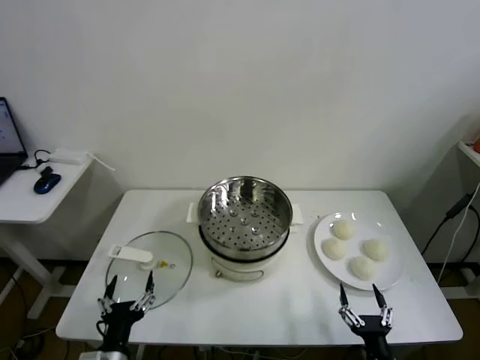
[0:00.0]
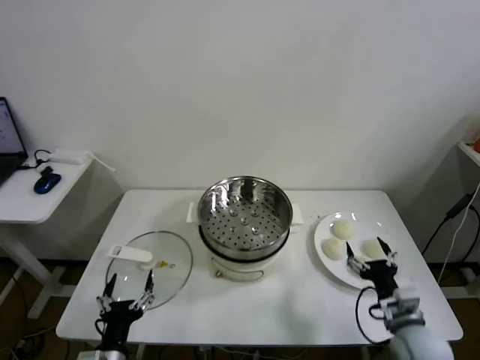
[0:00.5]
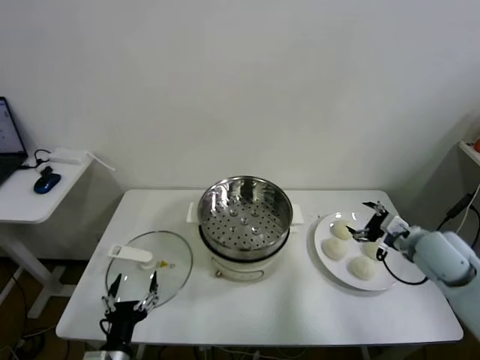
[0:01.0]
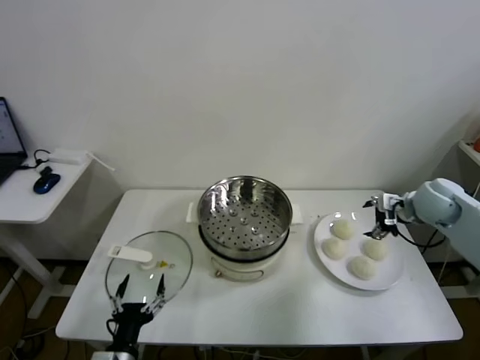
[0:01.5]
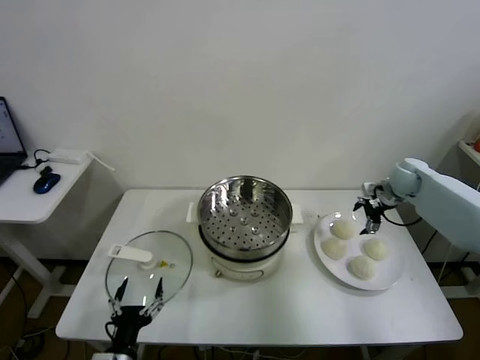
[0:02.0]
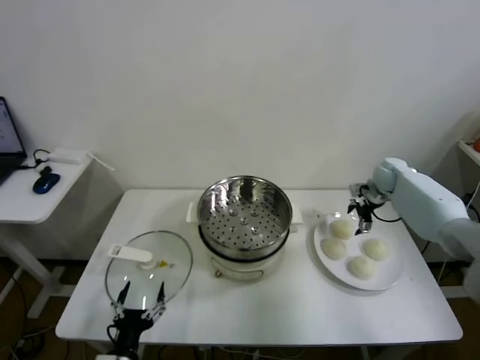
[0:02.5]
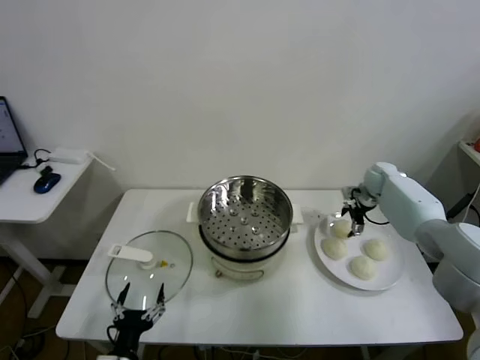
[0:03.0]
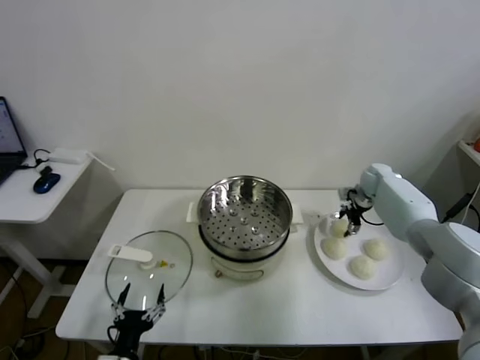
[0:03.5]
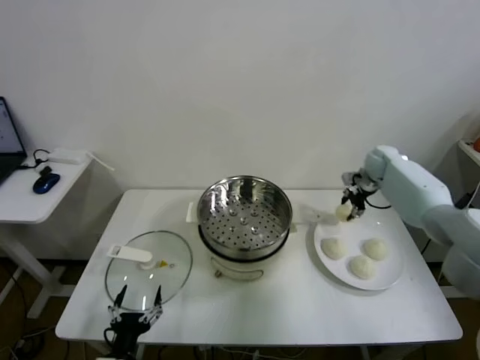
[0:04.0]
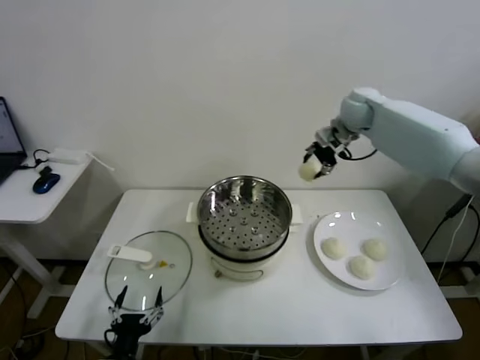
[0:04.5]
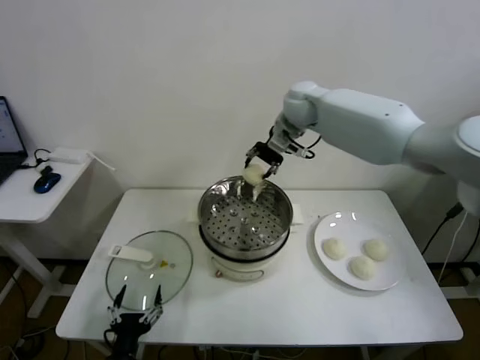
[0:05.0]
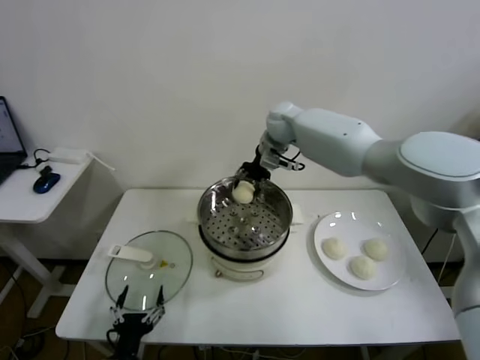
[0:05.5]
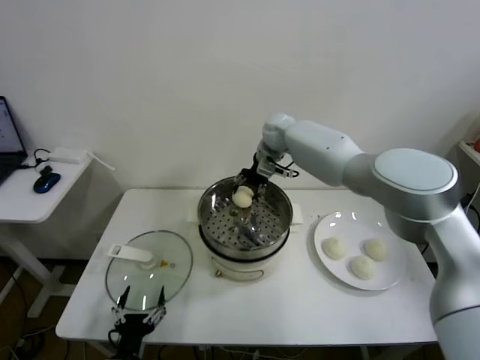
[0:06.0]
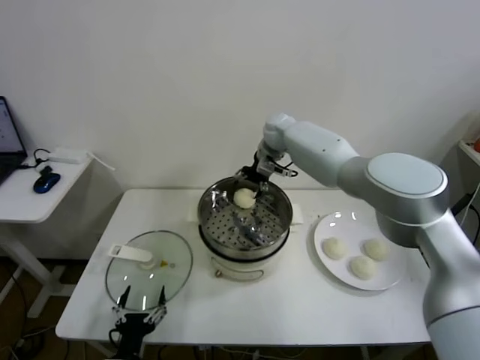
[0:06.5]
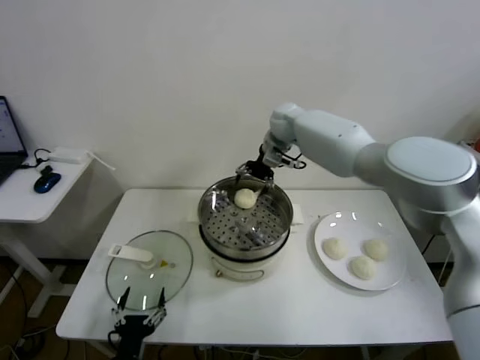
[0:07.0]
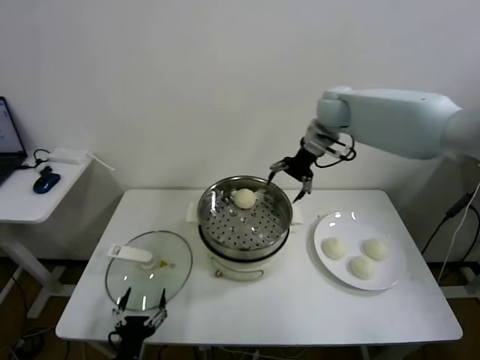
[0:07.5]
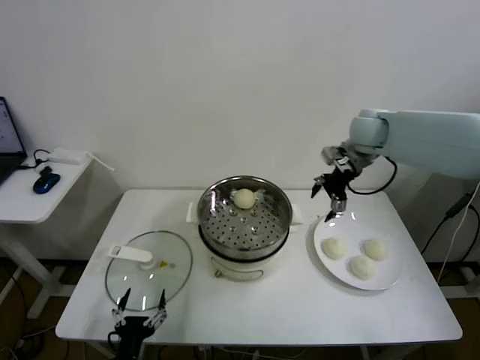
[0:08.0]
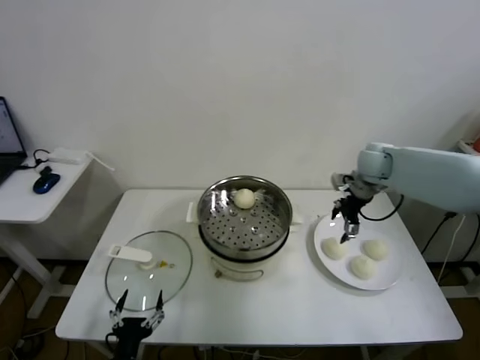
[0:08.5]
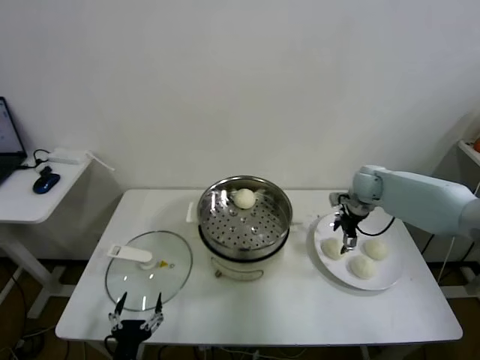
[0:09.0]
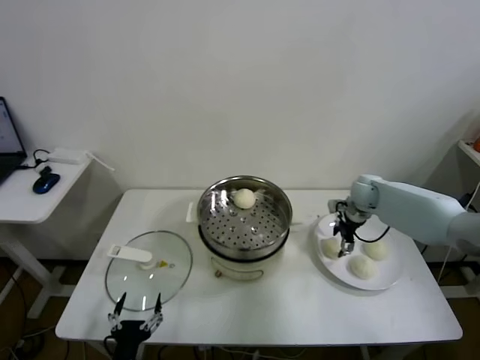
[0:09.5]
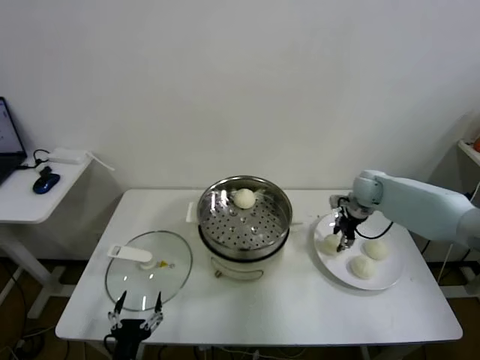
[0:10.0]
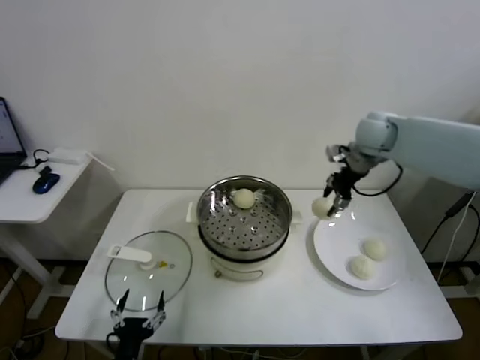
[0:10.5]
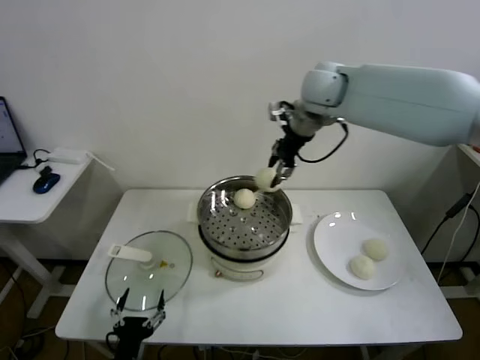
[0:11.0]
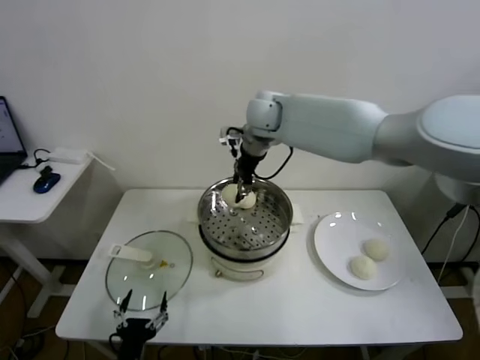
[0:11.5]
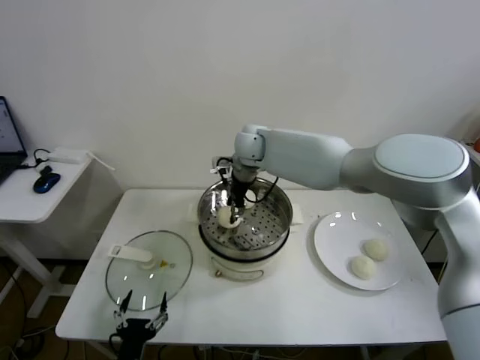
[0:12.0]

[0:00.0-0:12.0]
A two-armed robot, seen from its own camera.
Task of the whole recording: take steamed baozi put them in steamer.
Step, 0:00.0 to 0:03.5: Grasp the baozi in the plate with right gripper.
Step, 0:04.0 to 0:06.5: Place the baozi on the steamer with right gripper.
Step, 0:07.0 to 0:09.5: Grasp the baozi in the plate with right gripper.
0:02.0 to 0:04.0: The right gripper is displaced forward by roughly 5 cm, reaches about 5 cm downward, then returns, and closes.
0:04.0 to 0:06.0: The right gripper shifts about 30 cm to the left.
0:06.0 to 0:08.0: The right gripper moves to the right and backward, some 20 cm, and opens up.
0:08.0 to 0:10.0: The right gripper moves downward, approximately 15 cm, and closes up.
0:10.0 to 0:12.0: The right gripper is displaced to the left by some 30 cm.

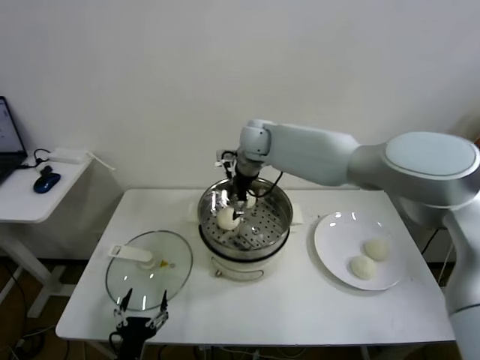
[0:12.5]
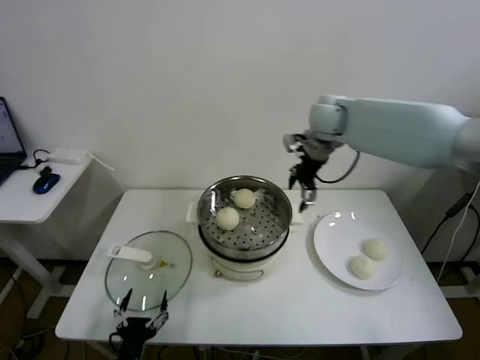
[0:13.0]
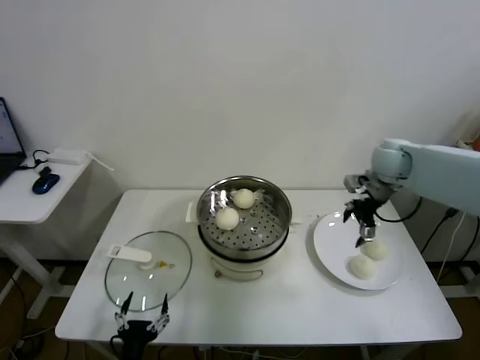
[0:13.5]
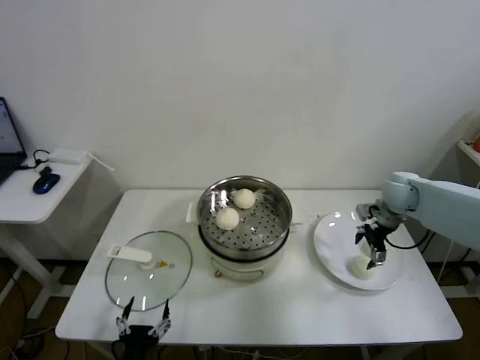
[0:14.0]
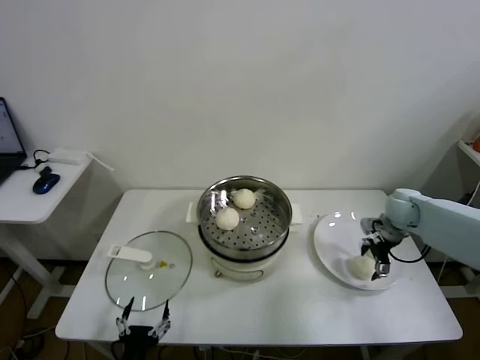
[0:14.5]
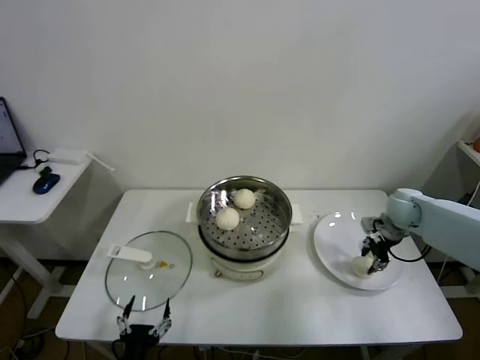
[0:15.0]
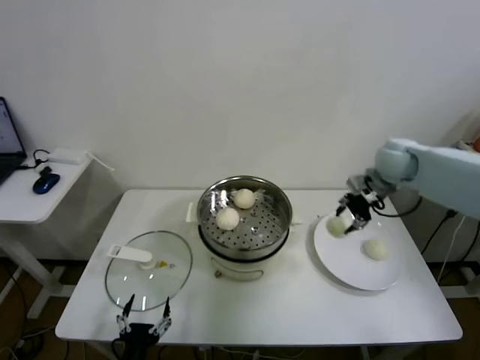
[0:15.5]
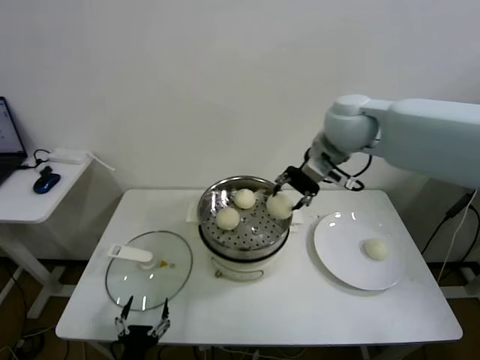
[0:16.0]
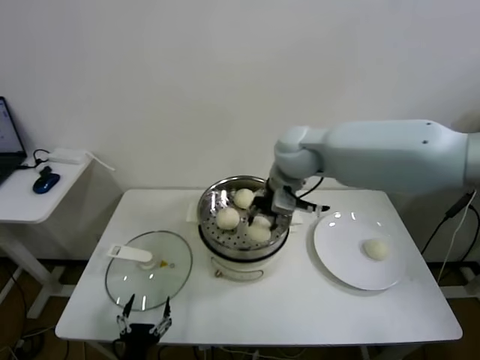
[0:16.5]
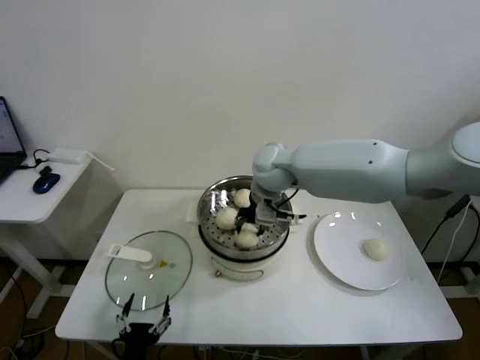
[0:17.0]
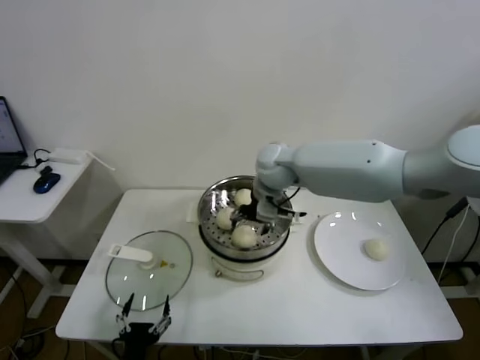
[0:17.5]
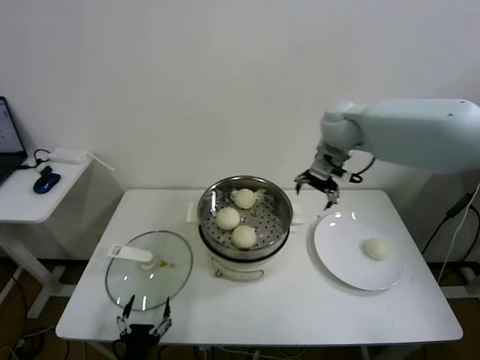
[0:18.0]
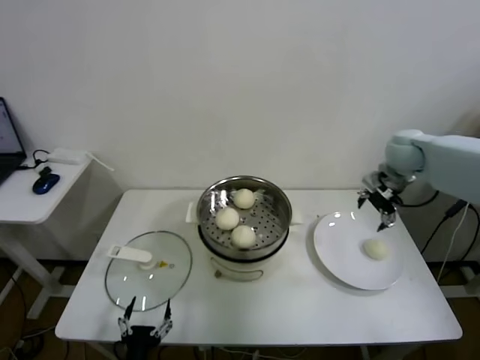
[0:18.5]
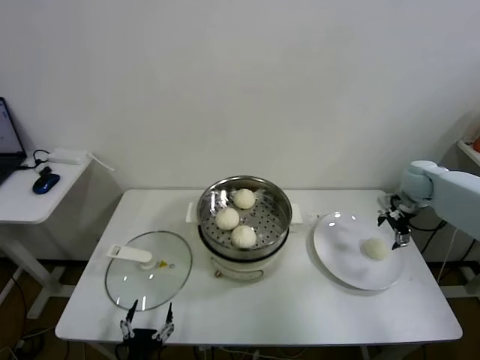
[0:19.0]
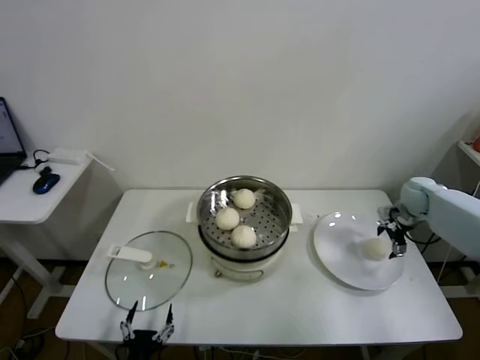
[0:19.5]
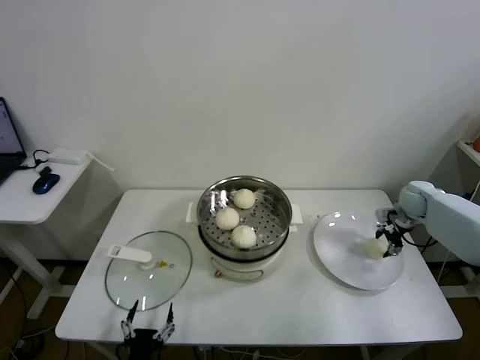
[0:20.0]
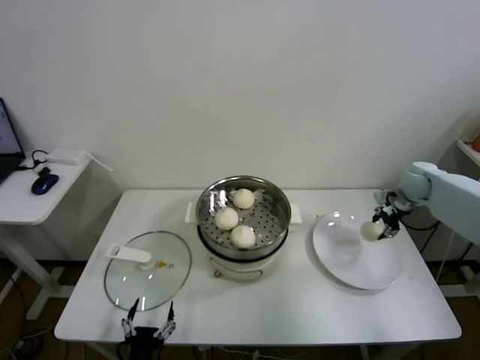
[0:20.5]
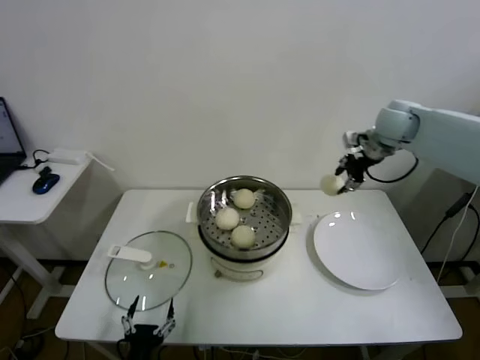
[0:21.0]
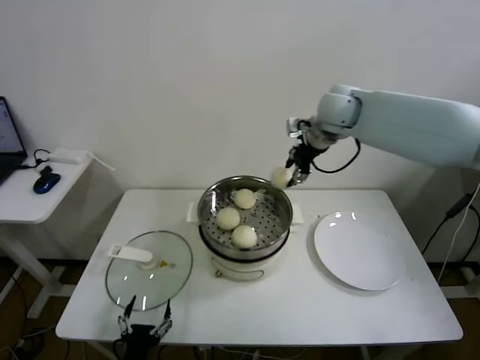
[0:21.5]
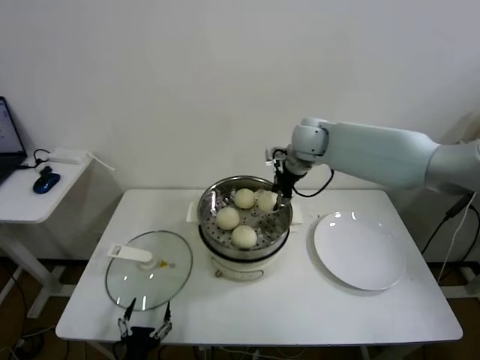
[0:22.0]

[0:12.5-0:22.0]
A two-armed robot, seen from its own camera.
Task of the whole recording: take steamed baozi put them in steamer.
Step, 0:13.0 to 0:15.0: Grasp the baozi in the plate with right gripper.
Step, 0:15.5 to 0:17.5: Place the baozi on the steamer with right gripper.
Step, 0:18.0 to 0:20.0: Grasp the baozi in the plate with right gripper.
0:12.5 to 0:14.5: The right gripper goes some 40 cm to the right and downward.
0:14.5 to 0:16.5: The right gripper travels to the left and upward by roughly 35 cm, and closes up.
0:16.5 to 0:18.0: The right gripper moves to the right and forward, roughly 10 cm, and opens up.
0:18.0 to 0:20.0: The right gripper travels to the right and downward by some 35 cm, and closes up.
0:20.0 to 0:22.0: The right gripper is displaced to the left and upward by about 35 cm, and closes up.

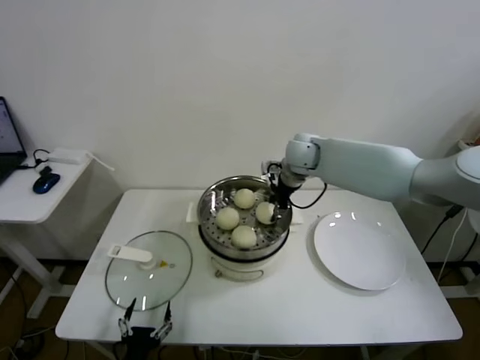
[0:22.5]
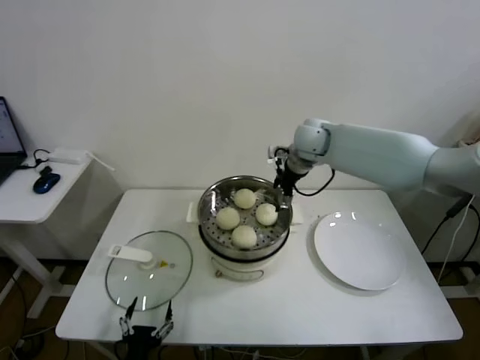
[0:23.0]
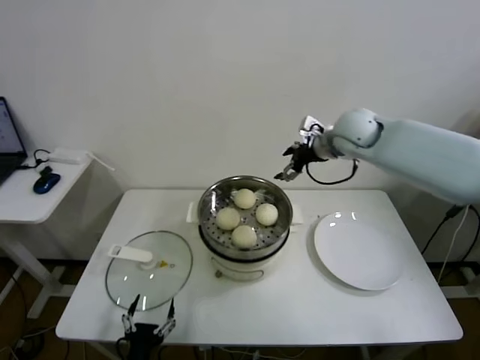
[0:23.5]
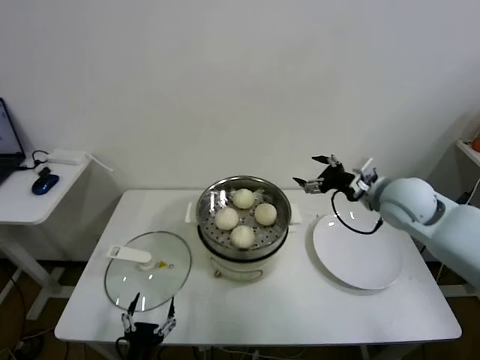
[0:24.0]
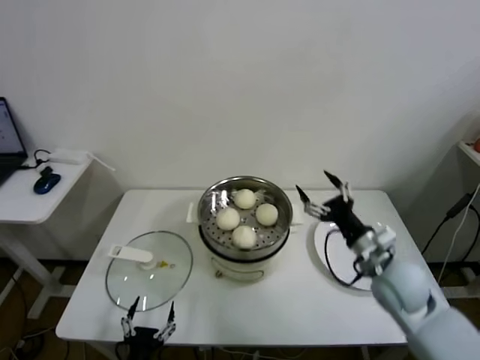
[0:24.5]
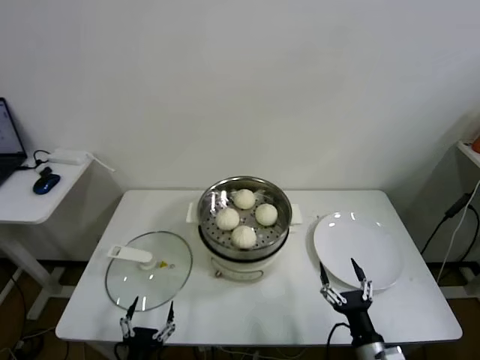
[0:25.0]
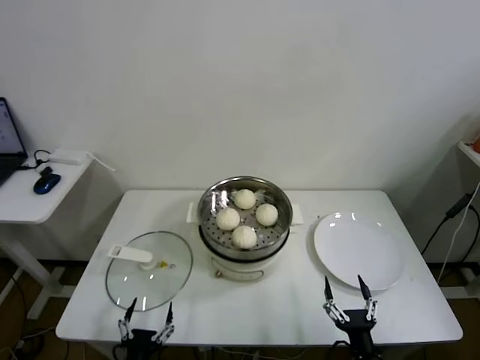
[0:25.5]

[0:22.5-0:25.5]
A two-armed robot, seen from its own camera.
Task of the whole recording: take steamed baozi put them in steamer.
0:22.5 to 0:24.0: The right gripper heads to the right and backward, covering about 20 cm, and opens up.
0:24.0 to 0:25.5: The right gripper travels backward and downward by about 40 cm.
